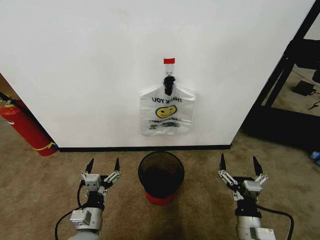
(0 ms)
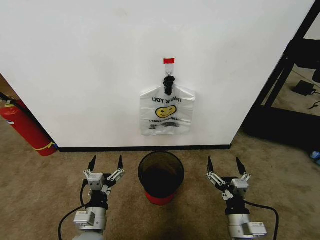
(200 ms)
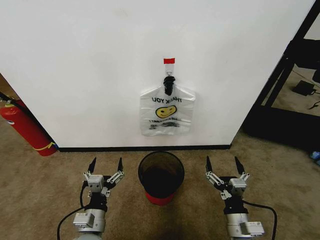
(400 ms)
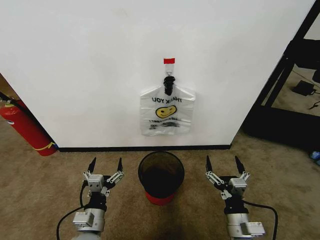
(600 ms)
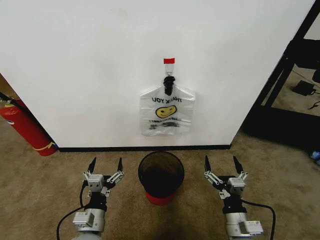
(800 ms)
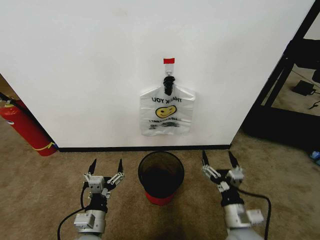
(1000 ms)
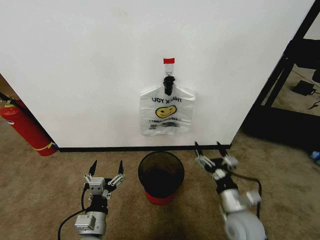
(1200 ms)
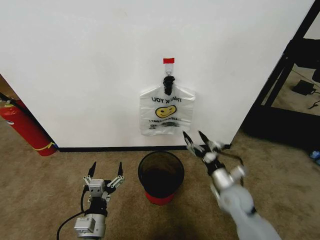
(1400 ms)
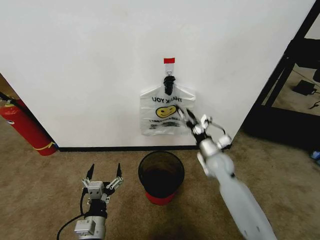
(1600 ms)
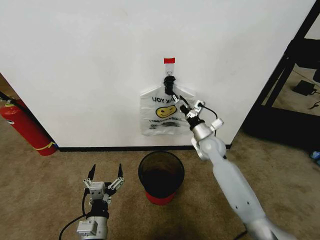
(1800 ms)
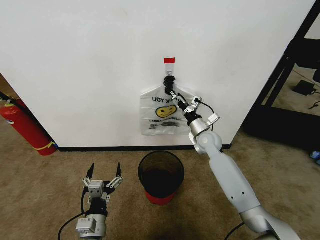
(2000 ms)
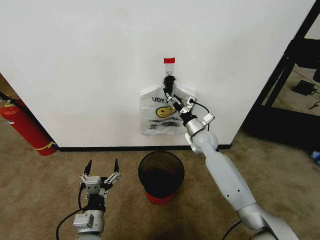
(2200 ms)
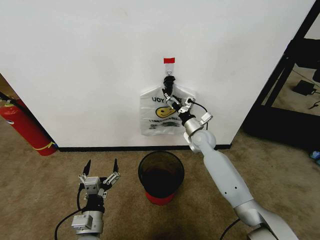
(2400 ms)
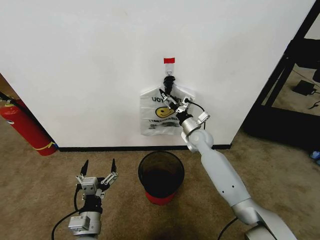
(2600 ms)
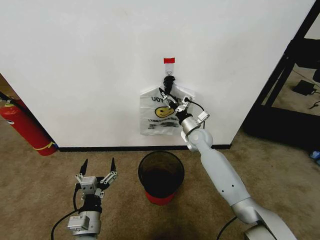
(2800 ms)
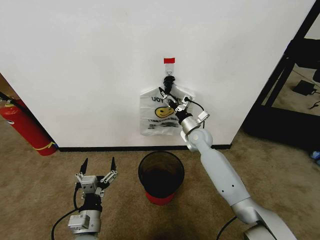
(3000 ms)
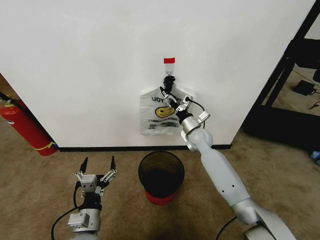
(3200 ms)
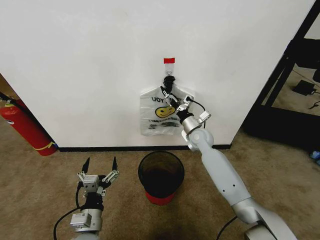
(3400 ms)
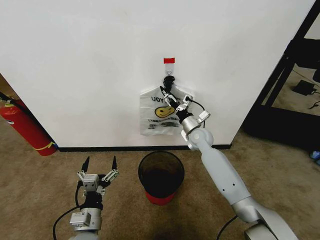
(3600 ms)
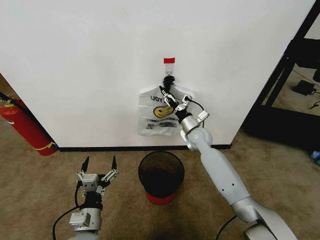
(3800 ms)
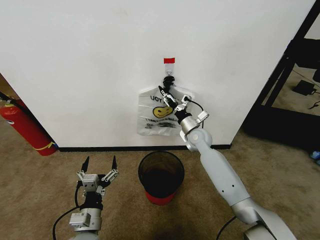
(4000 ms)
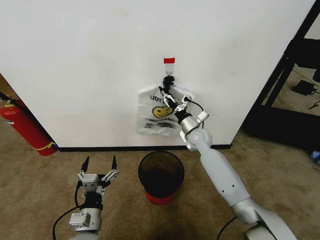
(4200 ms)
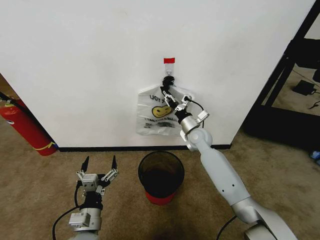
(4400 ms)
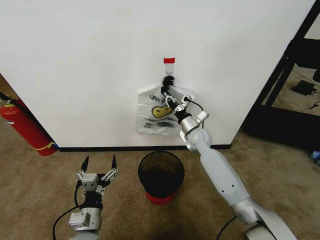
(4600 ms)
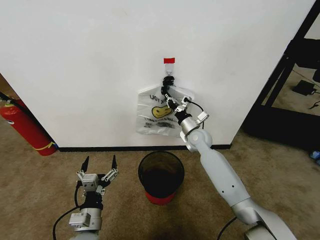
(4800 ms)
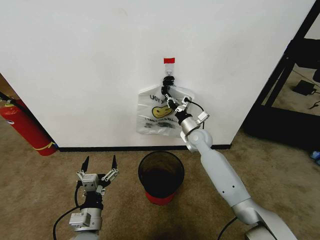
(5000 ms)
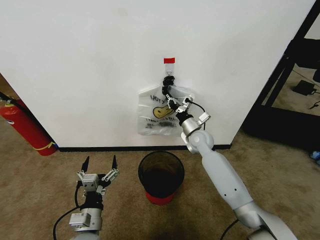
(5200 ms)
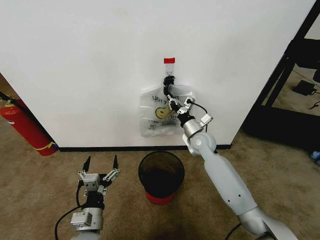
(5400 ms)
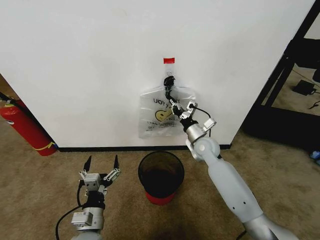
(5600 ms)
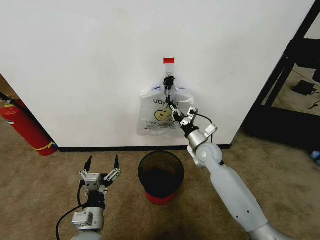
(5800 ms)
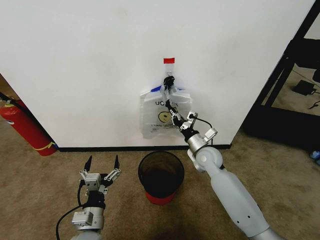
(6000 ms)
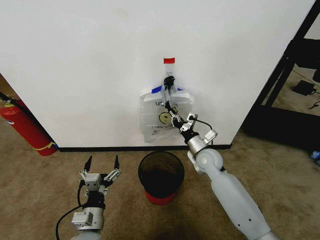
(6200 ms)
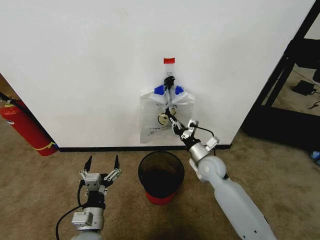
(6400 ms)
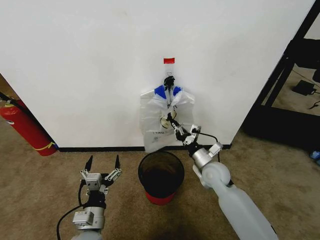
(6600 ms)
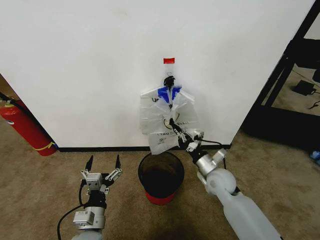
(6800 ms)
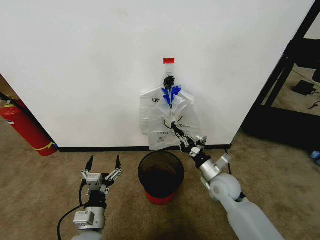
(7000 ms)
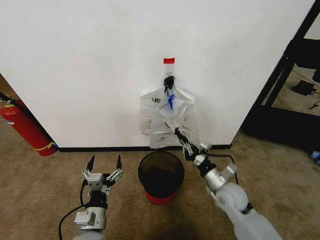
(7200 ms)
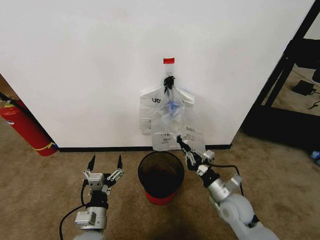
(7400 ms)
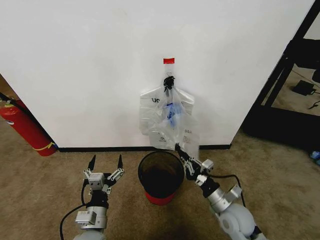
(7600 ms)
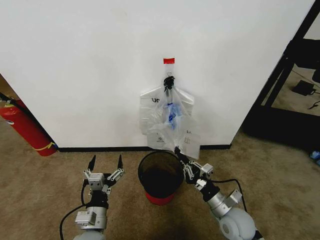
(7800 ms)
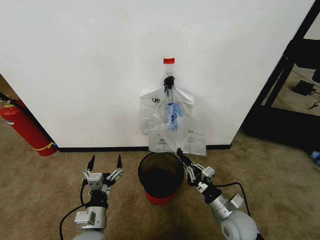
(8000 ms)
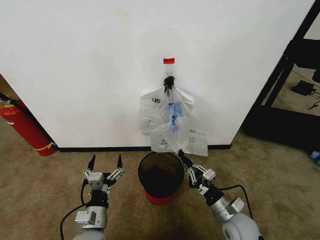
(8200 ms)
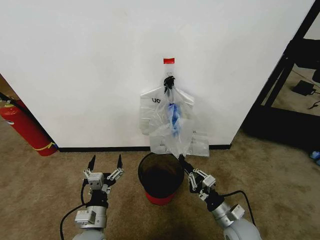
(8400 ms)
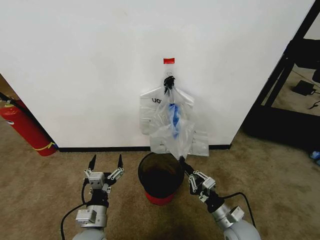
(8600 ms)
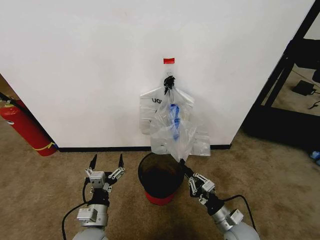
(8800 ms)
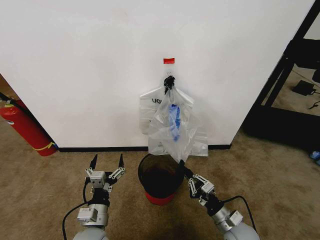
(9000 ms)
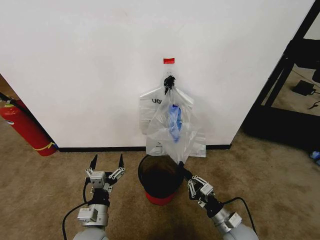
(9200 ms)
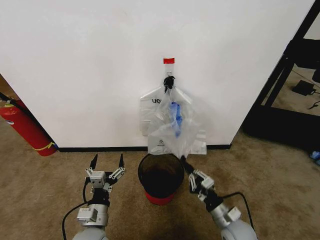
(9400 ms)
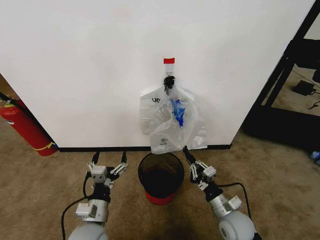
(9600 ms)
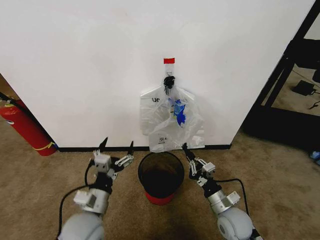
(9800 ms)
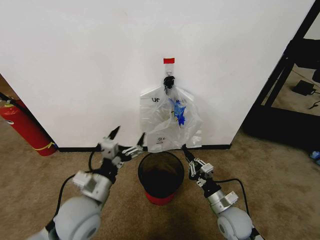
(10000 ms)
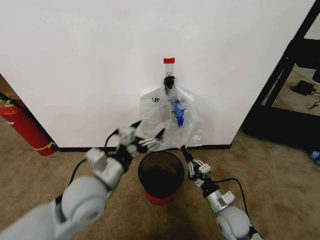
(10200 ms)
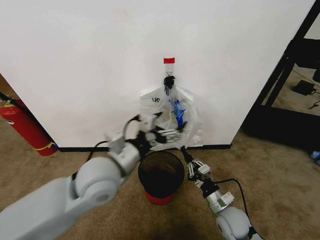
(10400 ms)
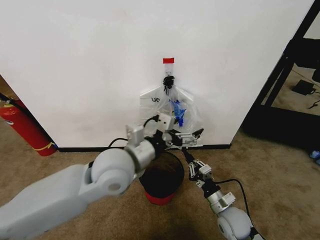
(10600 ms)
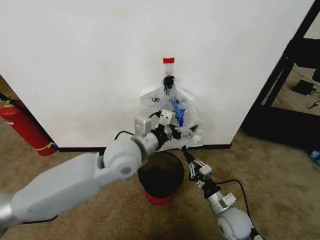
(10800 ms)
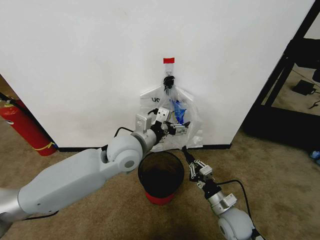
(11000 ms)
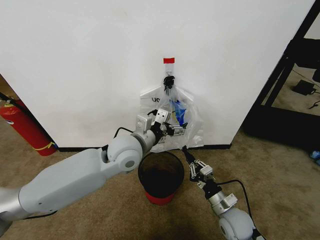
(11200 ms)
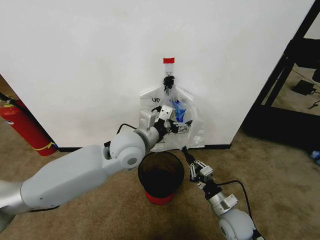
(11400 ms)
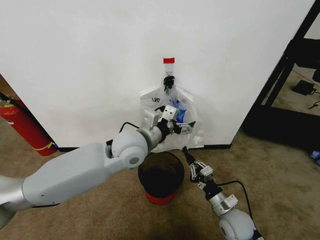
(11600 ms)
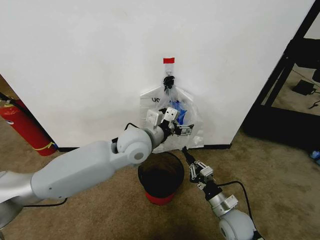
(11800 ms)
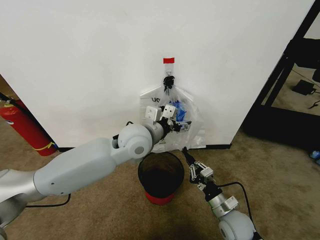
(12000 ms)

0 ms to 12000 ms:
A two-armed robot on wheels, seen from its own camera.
Task of the whole recording: Pick up the garbage bag from the wall and place it over the trash bin.
1600 ms to 3000 ms: The right gripper moves forward and to the left, approximately 15 cm.
3000 ms to 4400 ms: The right gripper closes.
4400 ms to 6000 ms: The right gripper shifts roughly 10 cm backward, and closes.
6000 ms to 7600 ms: The right gripper goes some 20 cm backward.
7600 ms to 9000 ms: The right gripper moves downward, some 5 cm.
9000 ms to 10400 ms: The right gripper ends up roughly 5 cm from where it was; the left gripper goes roughly 25 cm upward and forward.
10400 ms to 12000 ms: The left gripper moves forward and to the right, approximately 15 cm.

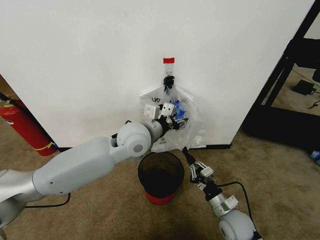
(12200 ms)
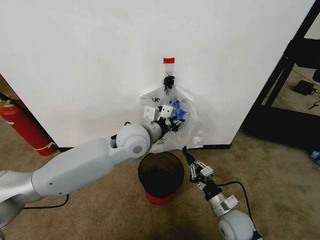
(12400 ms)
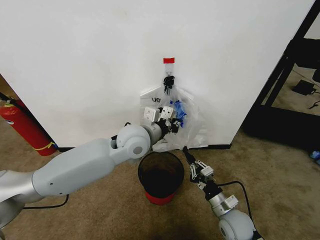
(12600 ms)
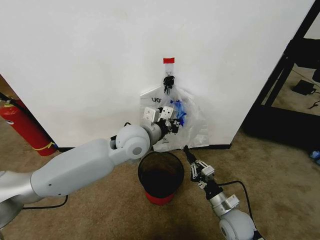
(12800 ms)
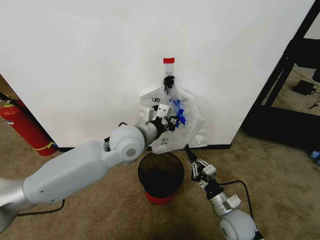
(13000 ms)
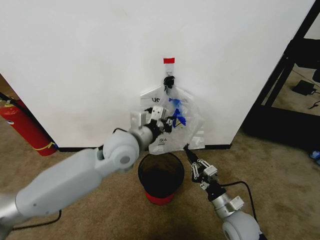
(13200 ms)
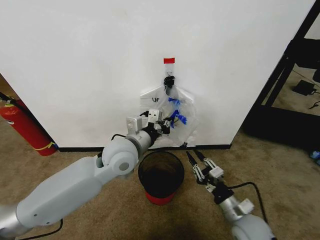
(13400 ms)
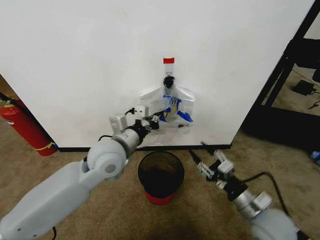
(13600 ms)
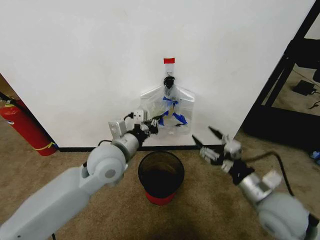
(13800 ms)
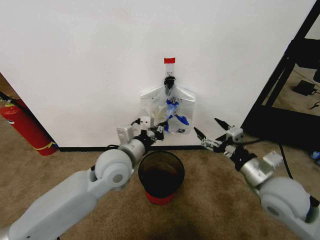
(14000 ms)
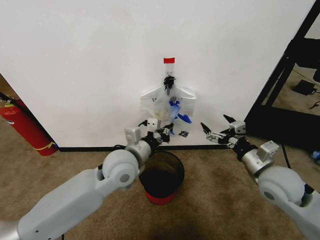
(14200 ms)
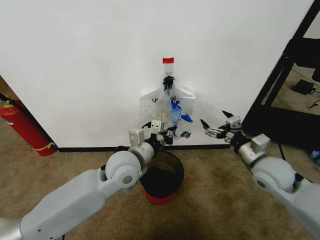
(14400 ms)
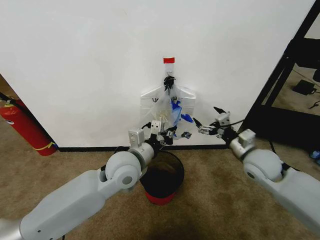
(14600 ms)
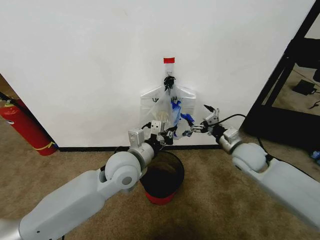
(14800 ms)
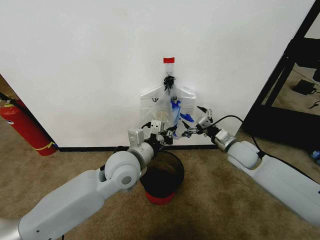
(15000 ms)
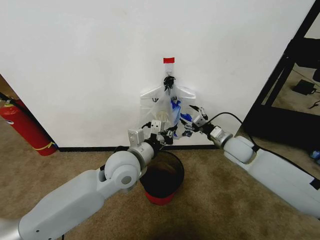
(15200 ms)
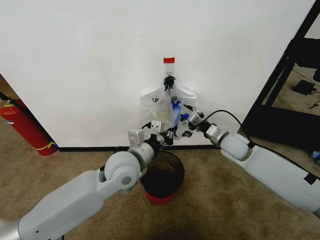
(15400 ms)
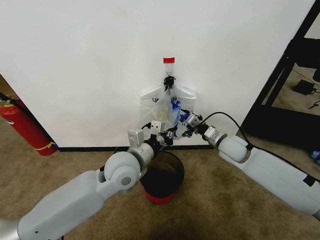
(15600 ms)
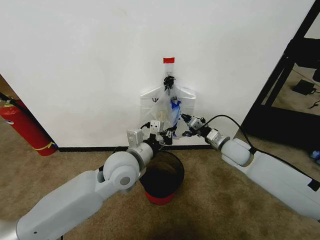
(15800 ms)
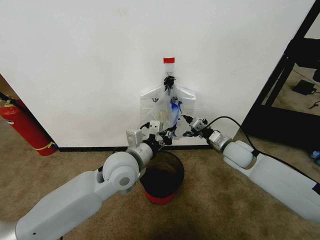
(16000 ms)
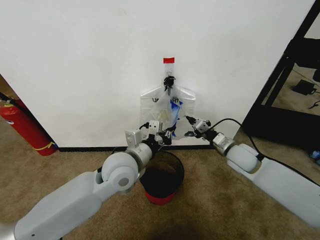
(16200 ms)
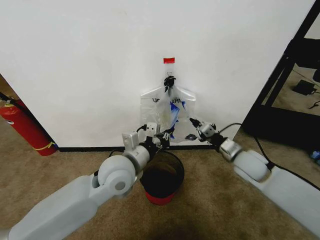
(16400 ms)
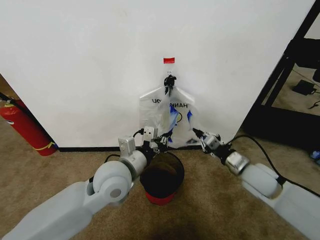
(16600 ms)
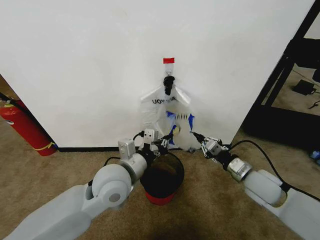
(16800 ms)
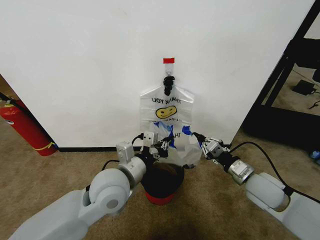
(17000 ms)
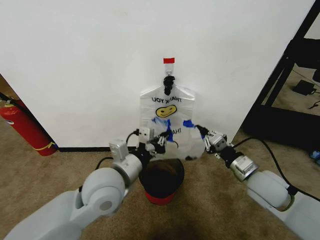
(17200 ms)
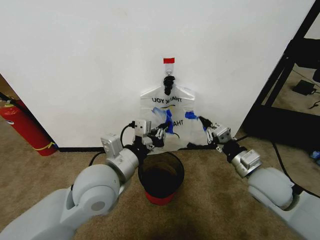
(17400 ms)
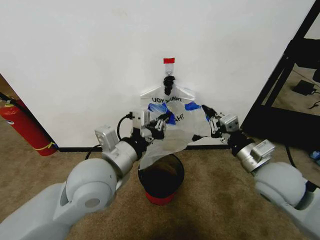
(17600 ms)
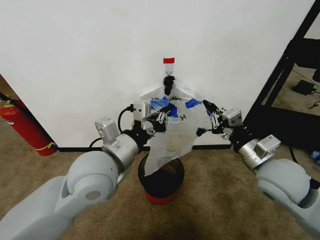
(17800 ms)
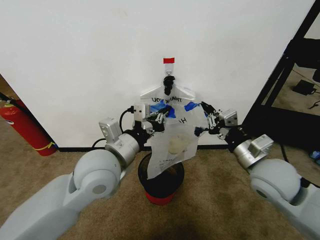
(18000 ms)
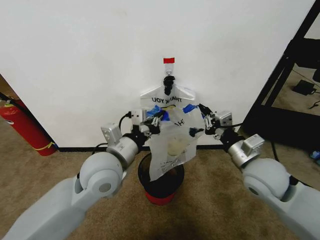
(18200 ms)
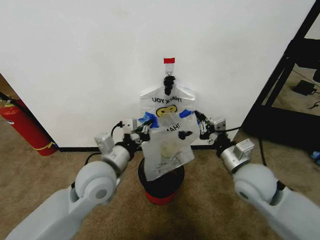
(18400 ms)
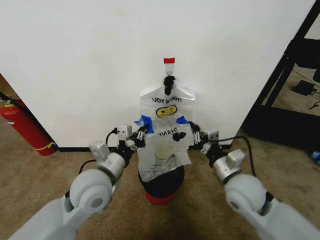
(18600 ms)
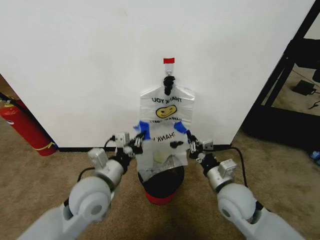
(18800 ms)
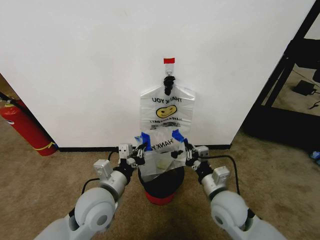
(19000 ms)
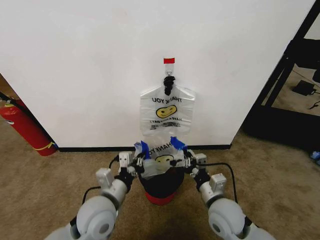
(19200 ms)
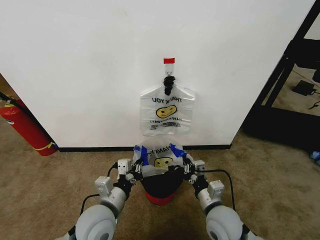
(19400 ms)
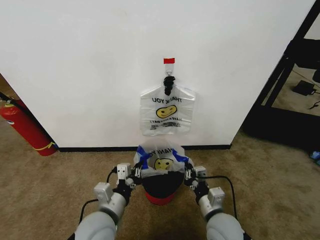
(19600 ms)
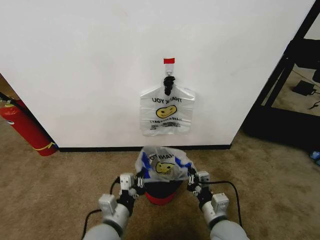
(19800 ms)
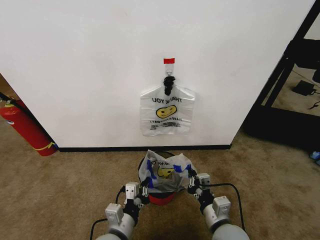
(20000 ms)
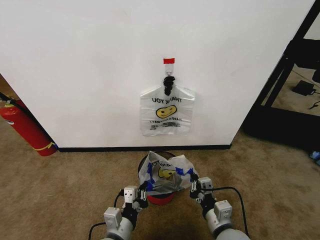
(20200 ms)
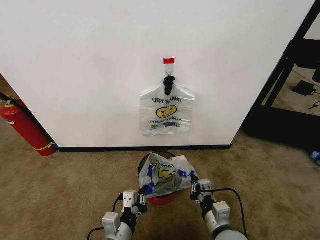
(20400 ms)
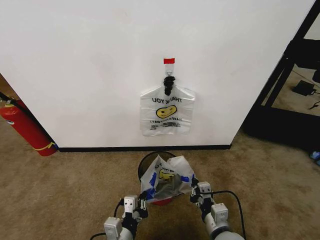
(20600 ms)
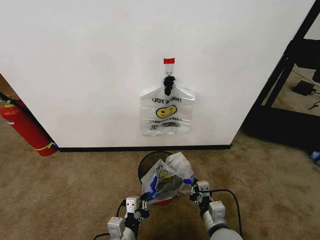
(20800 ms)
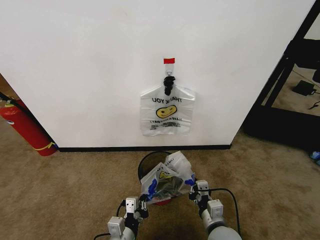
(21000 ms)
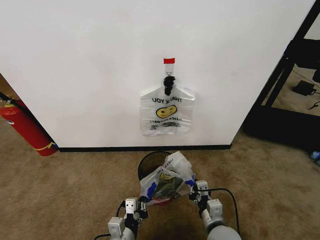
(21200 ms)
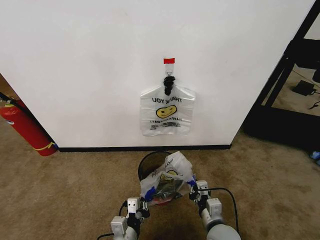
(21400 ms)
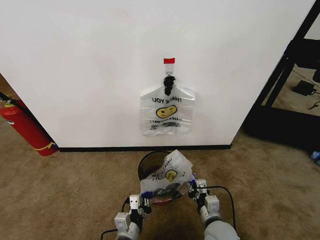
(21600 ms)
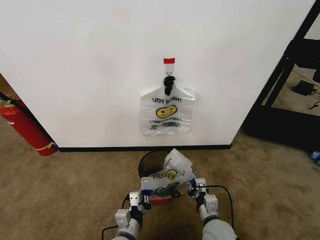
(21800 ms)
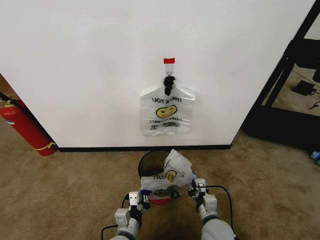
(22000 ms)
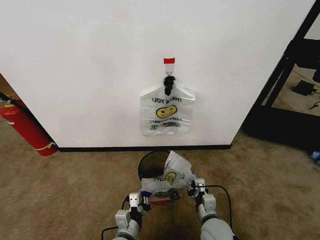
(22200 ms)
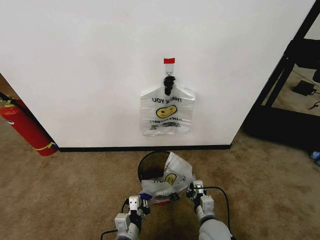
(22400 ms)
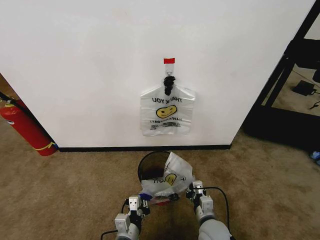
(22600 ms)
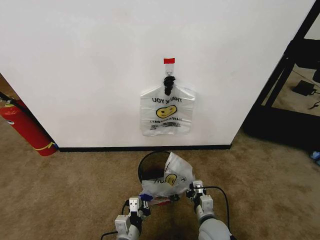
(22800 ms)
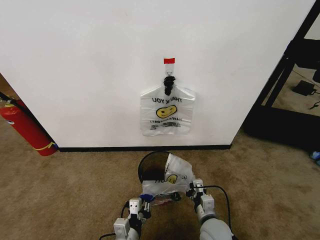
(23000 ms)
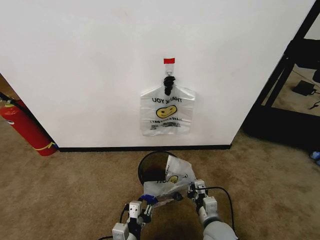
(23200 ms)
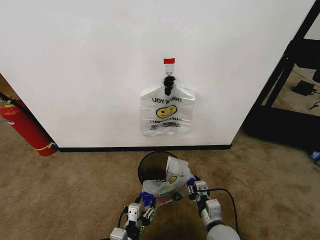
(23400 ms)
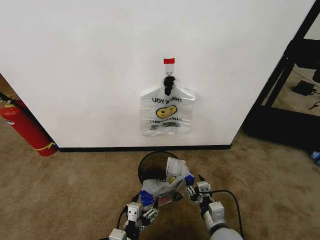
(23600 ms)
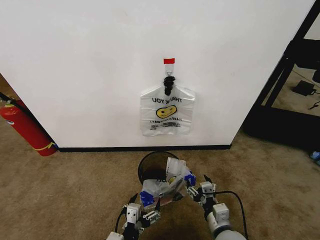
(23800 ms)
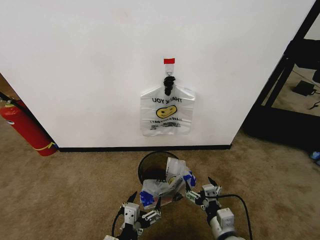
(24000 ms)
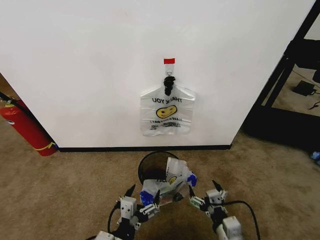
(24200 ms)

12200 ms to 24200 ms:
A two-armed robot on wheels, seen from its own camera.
Task of the whole recording: Pick up the garbage bag from the wall and place it over the trash bin.
12200 ms to 13800 ms: The right gripper travels upward by roughly 15 cm, and opens. Meanwhile the left gripper moves to the left and backward, approximately 10 cm, and closes up.
13800 ms to 15200 ms: The right gripper heads forward, covering roughly 20 cm.
15200 ms to 16600 ms: The right gripper travels backward by roughly 10 cm, and closes its fingers.
16600 ms to 18200 ms: The right gripper travels upward by approximately 10 cm.
18200 ms to 19800 ms: The right gripper is displaced downward, backward and to the left by about 20 cm. The left gripper goes roughly 20 cm downward and backward.
19800 ms to 21200 ms: The left gripper heads downward, covering about 5 cm.
21200 ms to 22600 ms: The right gripper travels downward by roughly 5 cm.
22600 ms to 24200 ms: The left gripper shifts approximately 15 cm upward and backward, and opens up. Meanwhile the right gripper shifts approximately 10 cm backward and upward, and opens its fingers.
